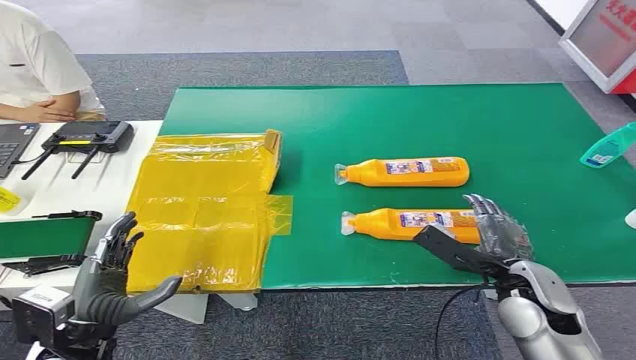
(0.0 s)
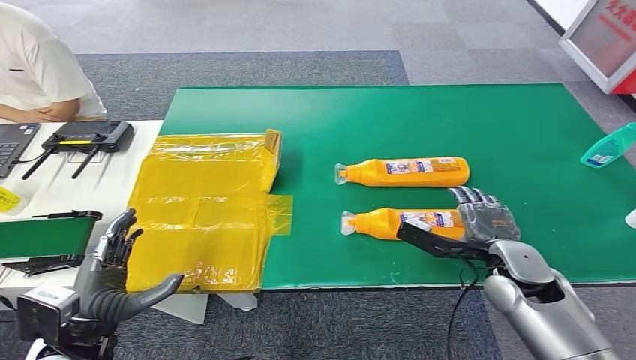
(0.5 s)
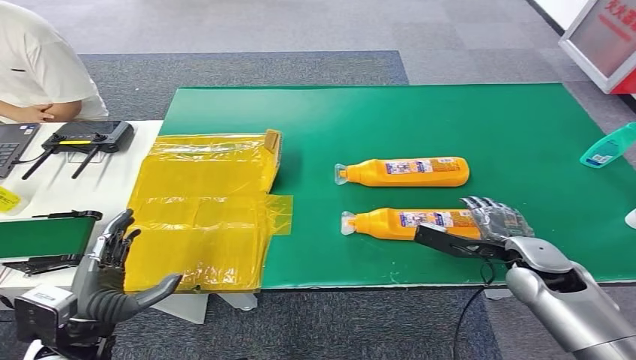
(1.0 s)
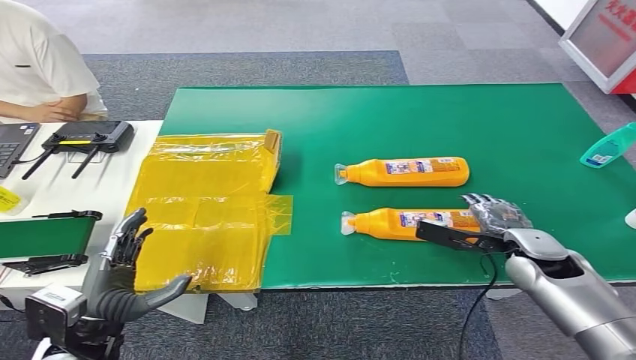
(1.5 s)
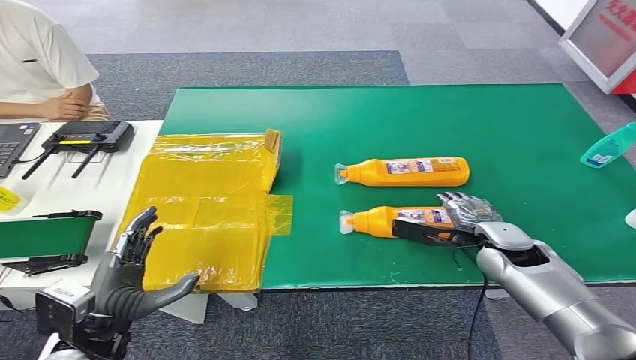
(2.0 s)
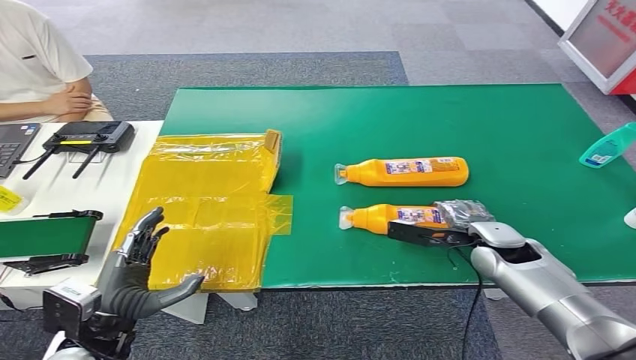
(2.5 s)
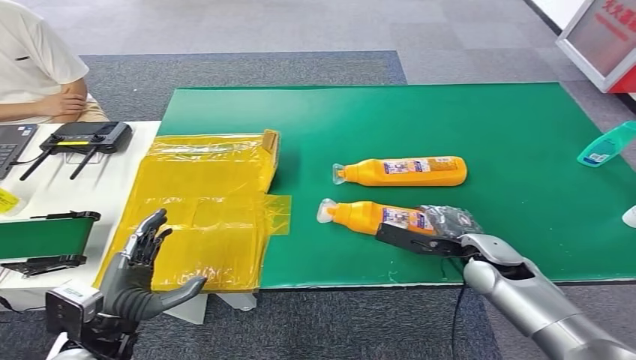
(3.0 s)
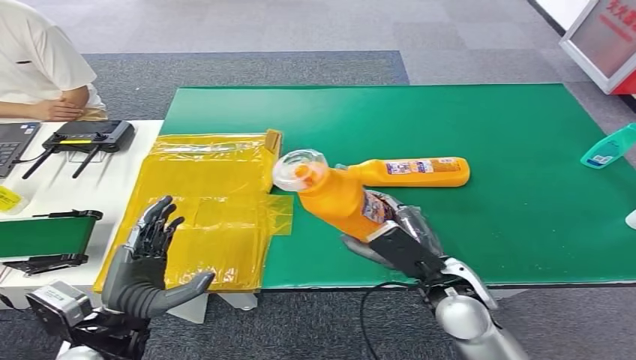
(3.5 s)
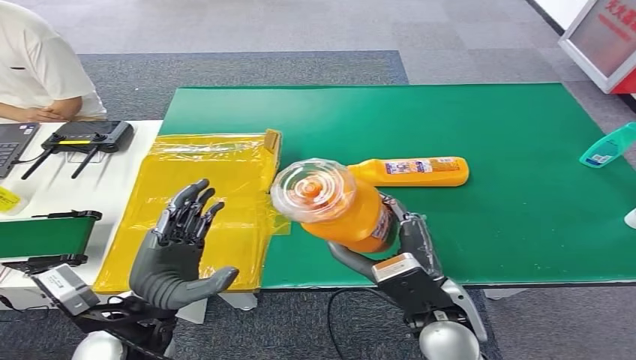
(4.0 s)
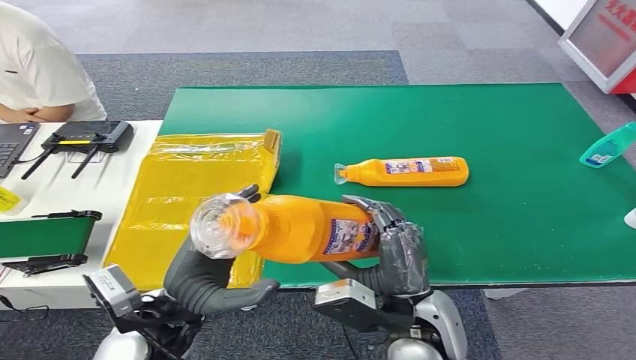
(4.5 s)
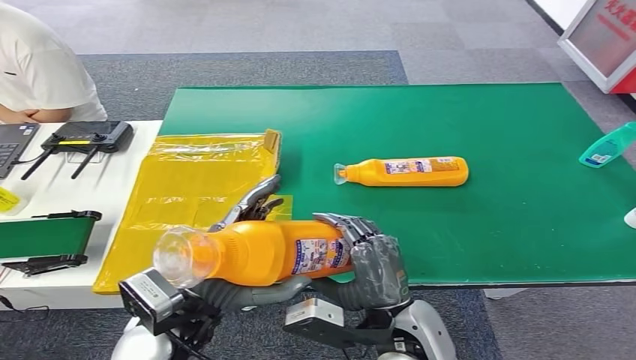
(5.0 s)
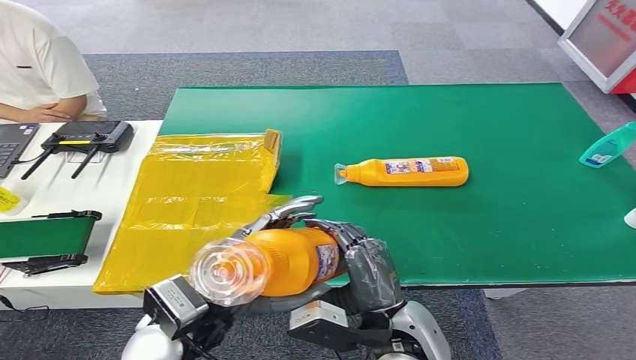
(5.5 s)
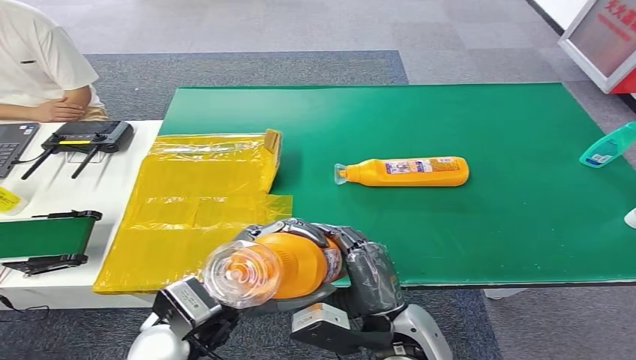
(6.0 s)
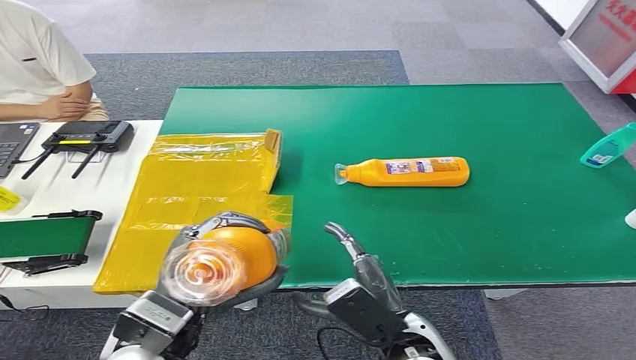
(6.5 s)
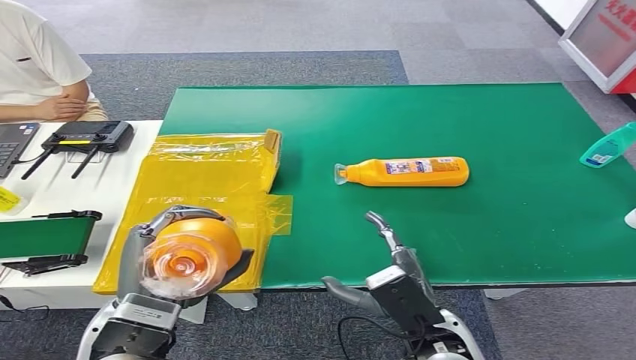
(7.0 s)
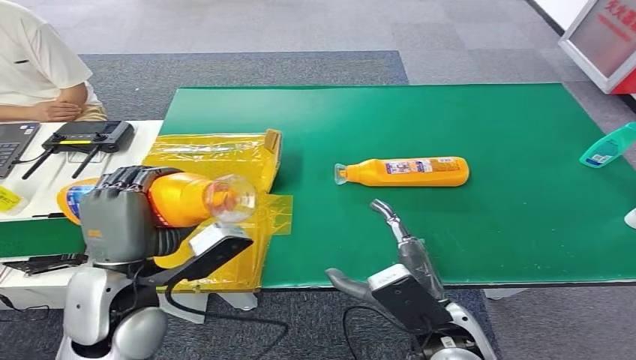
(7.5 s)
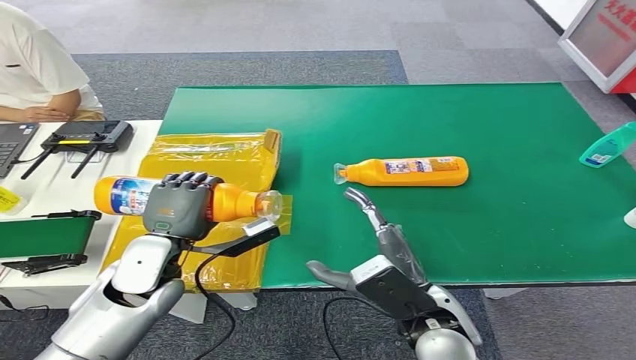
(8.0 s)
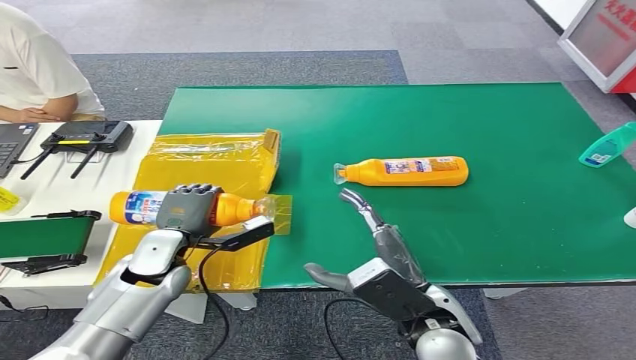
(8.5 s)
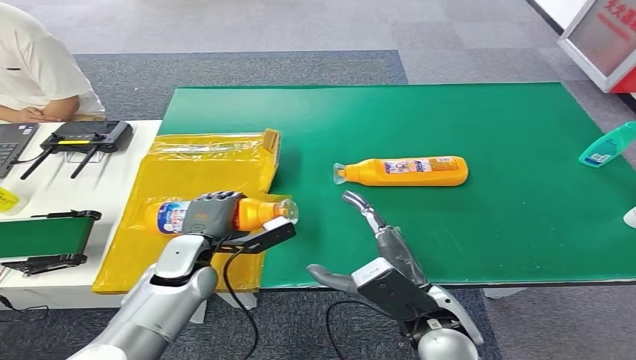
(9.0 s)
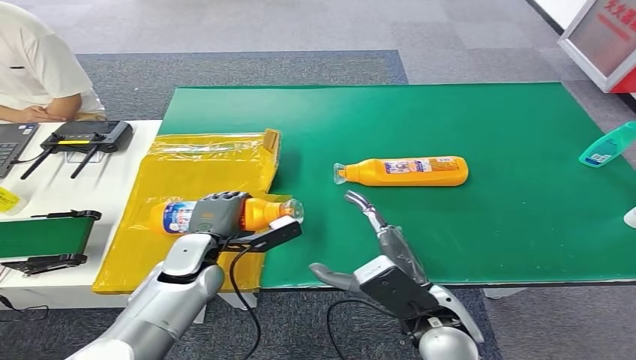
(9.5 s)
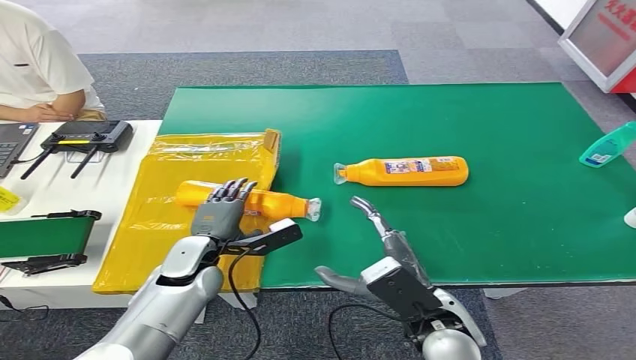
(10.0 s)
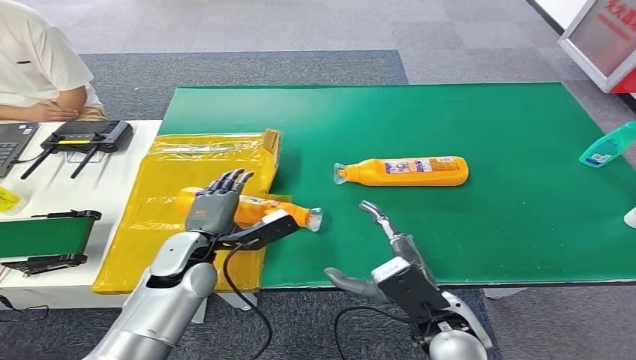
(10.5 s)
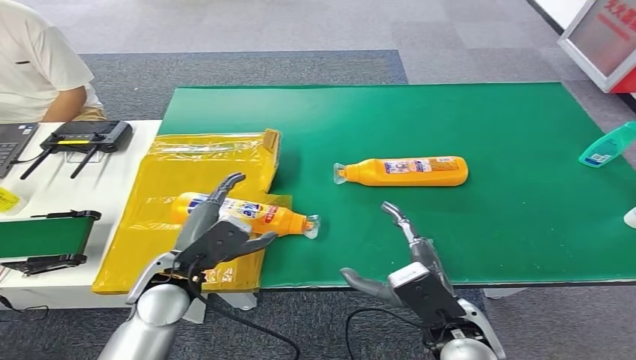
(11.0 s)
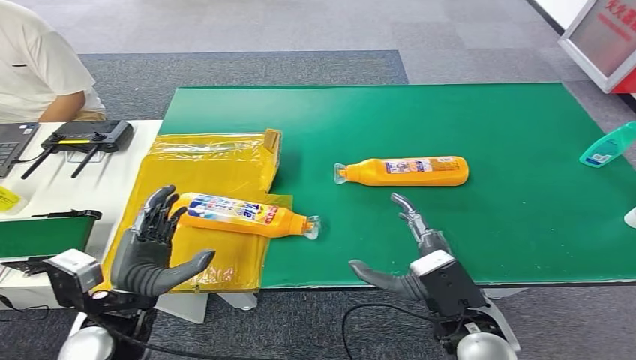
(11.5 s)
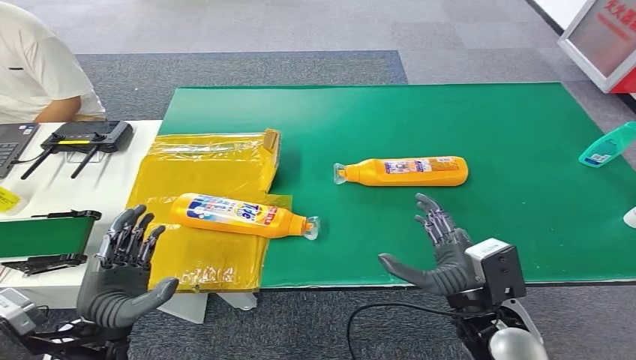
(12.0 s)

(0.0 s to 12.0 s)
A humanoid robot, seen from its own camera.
Step, 0.0 s - 6.5 s: Pick up the bottle from the table.
Step, 7.0 s - 12.0 s: Turn the bottle to the front side.
6.0 s - 8.0 s: The left hand goes about 10 cm forward and to the left.
8.0 s - 10.0 s: The left hand moves downward, roughly 10 cm.
10.0 s - 12.0 s: The left hand heads backward and to the left, covering approximately 20 cm, while the right hand travels to the right by some 5 cm.
